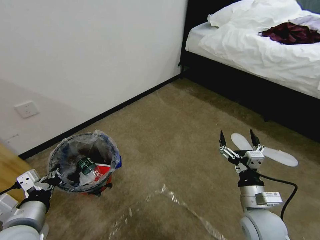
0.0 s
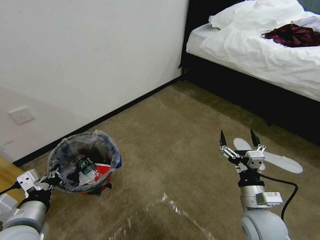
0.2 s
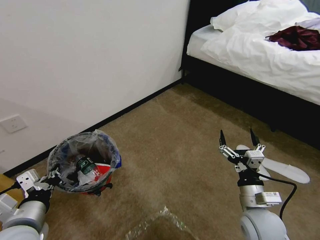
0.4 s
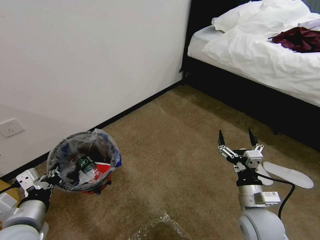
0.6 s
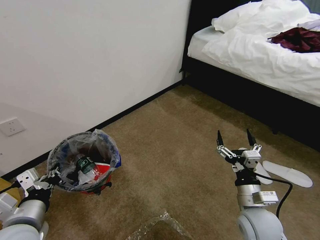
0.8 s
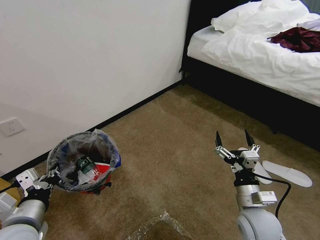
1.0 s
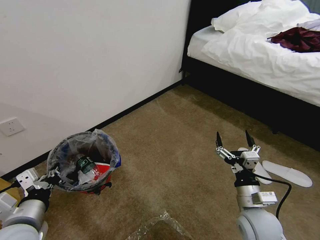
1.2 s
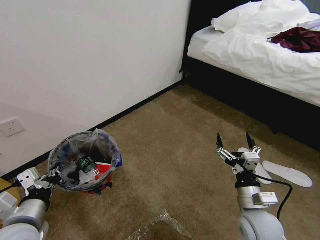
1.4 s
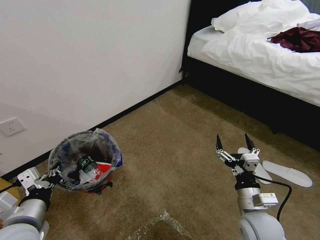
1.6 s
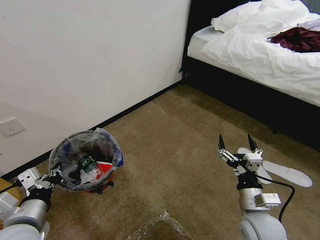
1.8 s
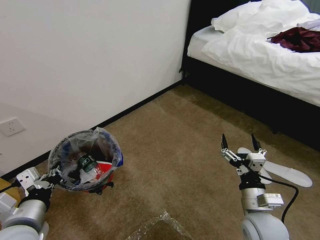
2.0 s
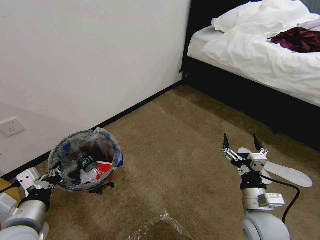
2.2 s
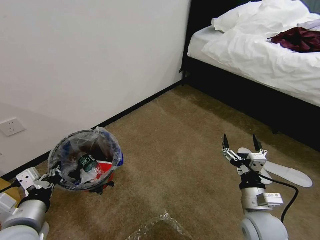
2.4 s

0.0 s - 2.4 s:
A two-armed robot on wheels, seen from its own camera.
Task of the whole recording: Pick up the trash bin and place the garbage on the floor into it.
1.2 s - 2.4 s: The grippers make only small movements.
